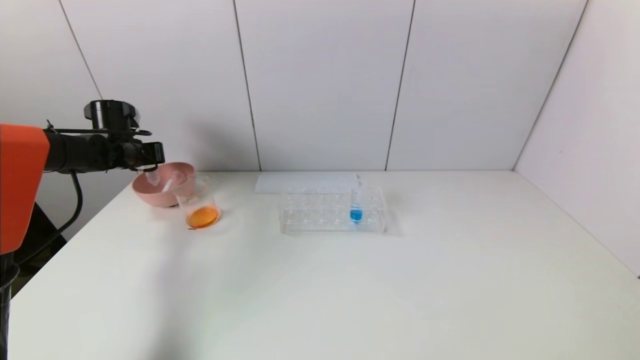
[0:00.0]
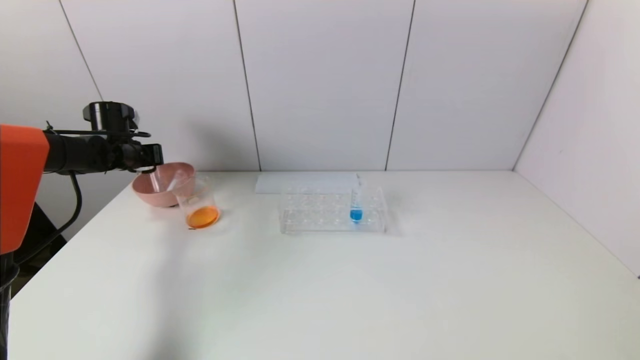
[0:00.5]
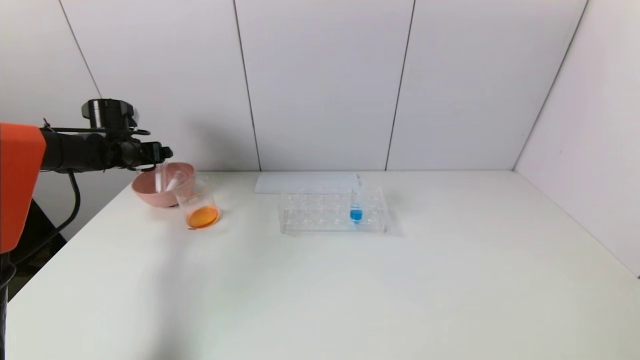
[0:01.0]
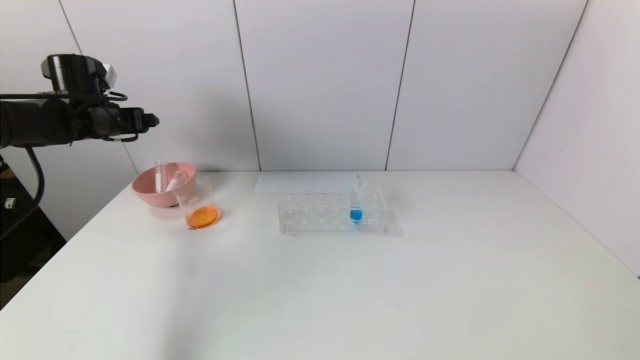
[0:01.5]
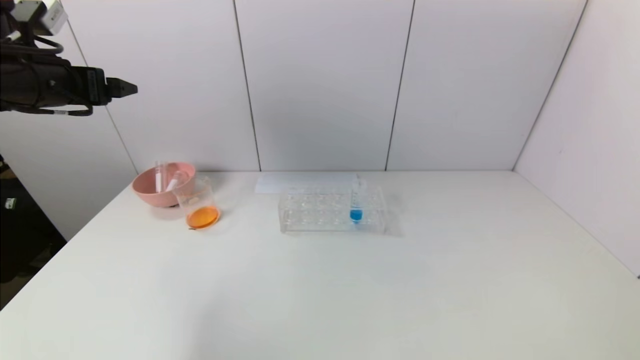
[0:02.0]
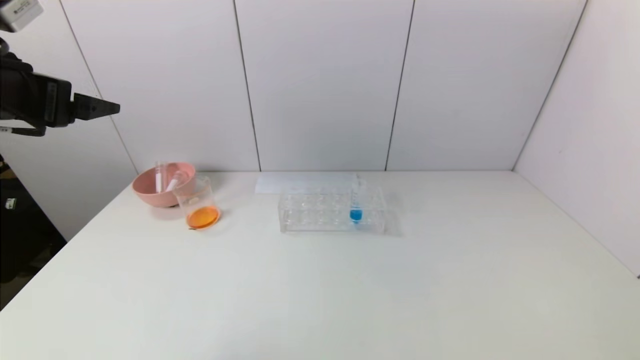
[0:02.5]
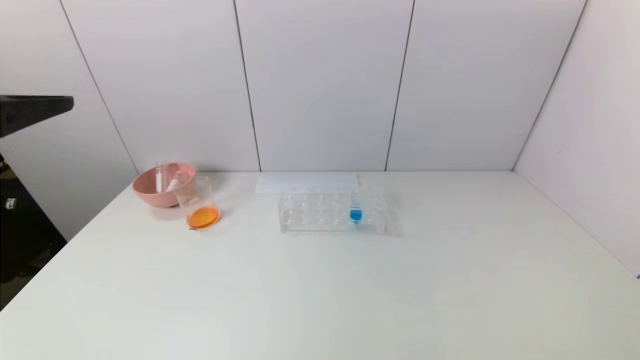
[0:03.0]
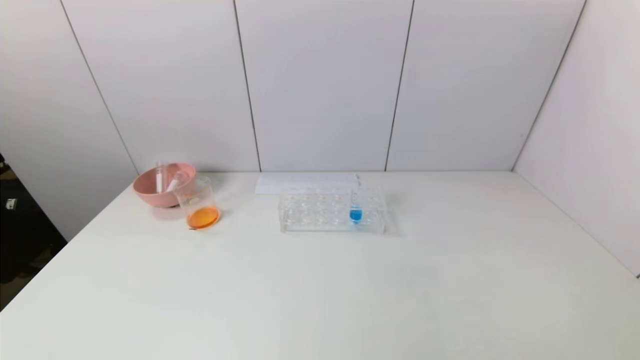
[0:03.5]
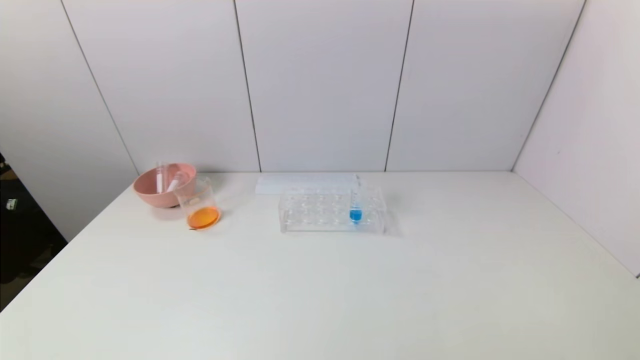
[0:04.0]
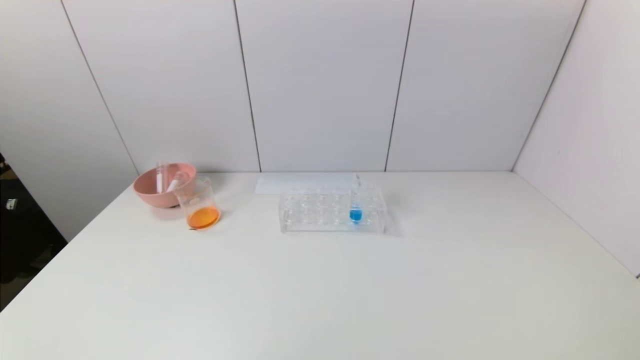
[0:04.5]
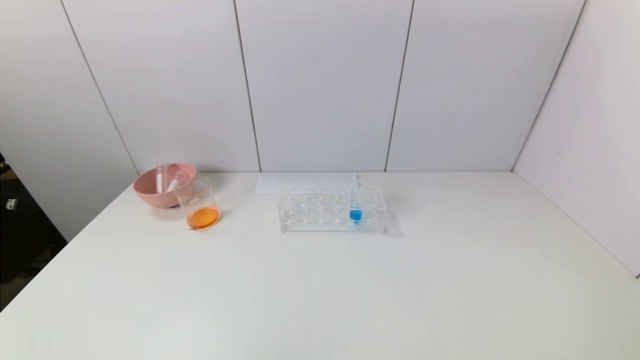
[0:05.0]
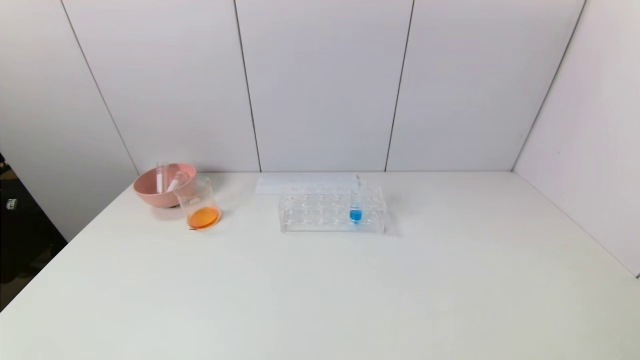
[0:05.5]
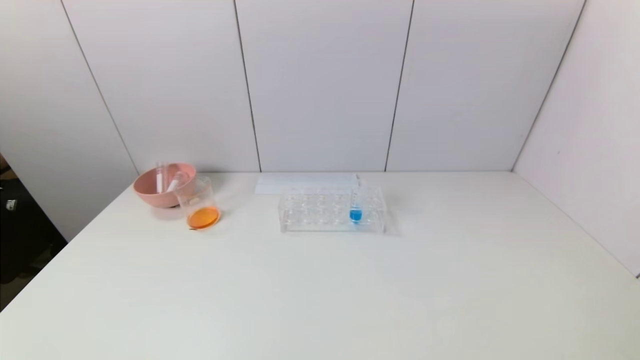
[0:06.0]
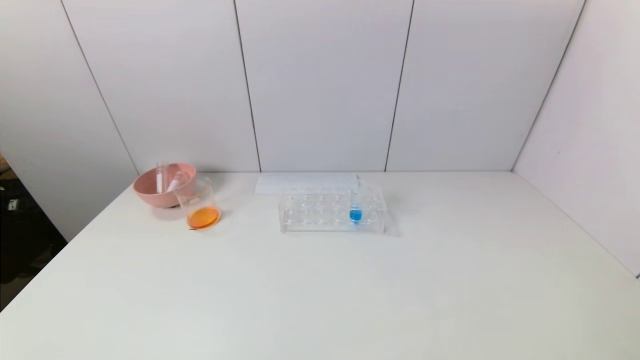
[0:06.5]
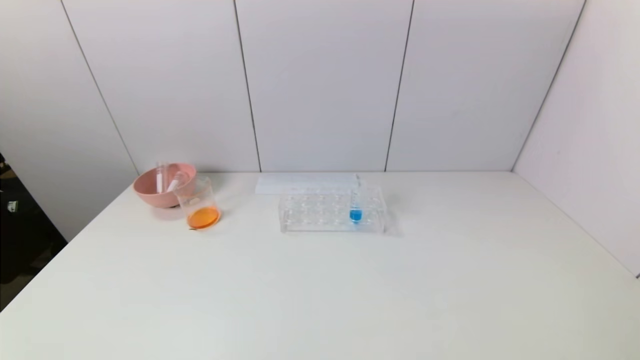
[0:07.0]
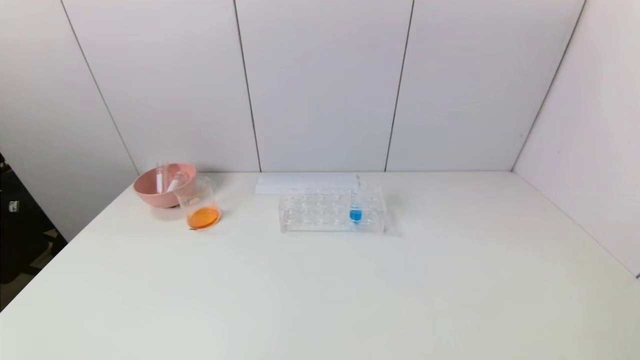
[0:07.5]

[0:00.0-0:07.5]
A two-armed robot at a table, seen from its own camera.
Task of the whole recording: pick up the test tube with yellow pigment and the test tube with red pigment by grippers and pour them into the beaker.
0:00.0 to 0:02.0: The left gripper moves upward and backward, some 25 cm, and opens its fingers.
0:02.0 to 0:04.0: The left gripper is displaced backward by some 40 cm.
